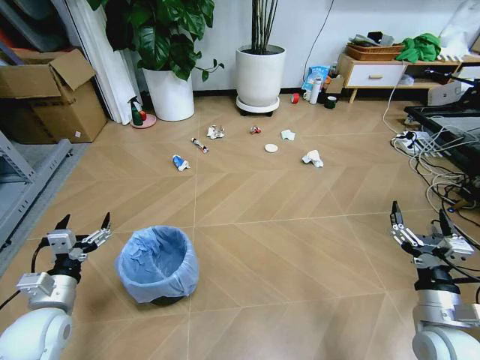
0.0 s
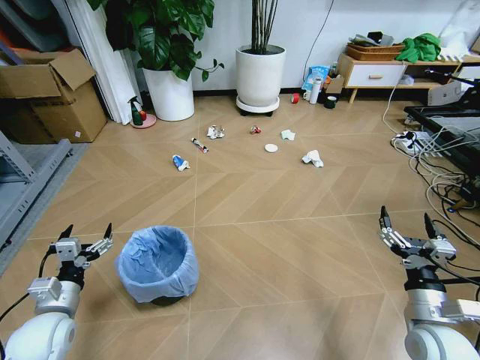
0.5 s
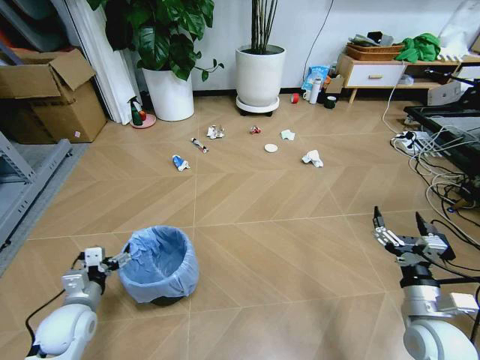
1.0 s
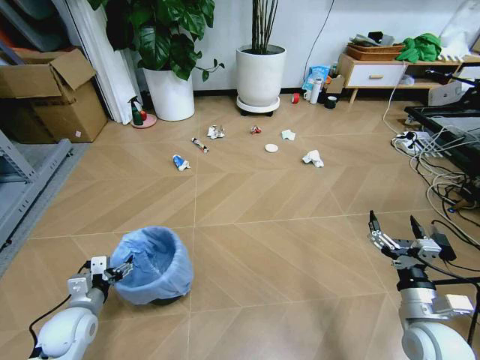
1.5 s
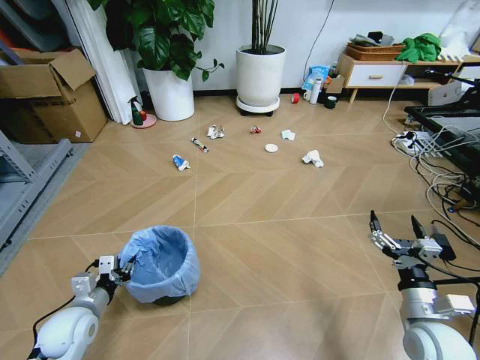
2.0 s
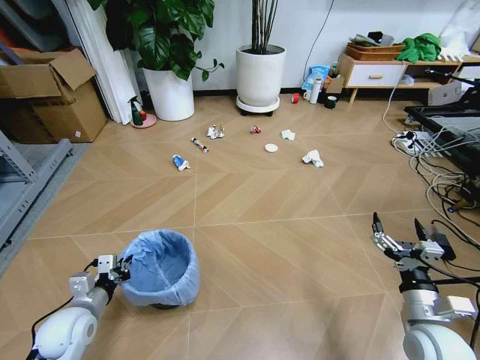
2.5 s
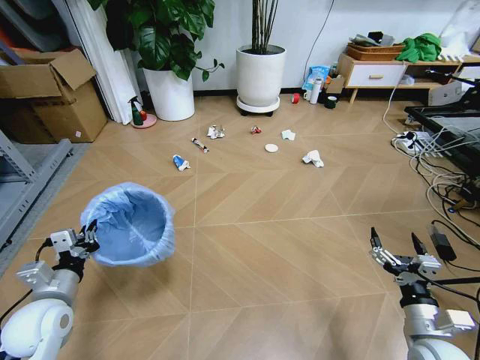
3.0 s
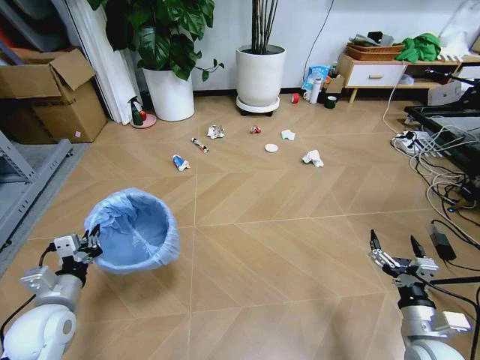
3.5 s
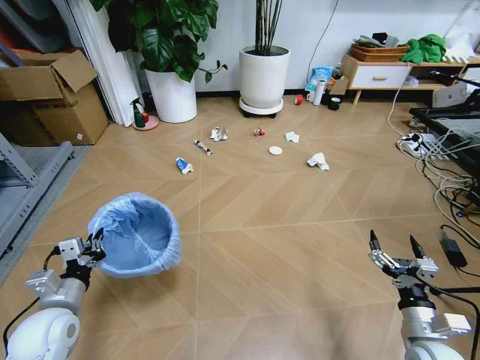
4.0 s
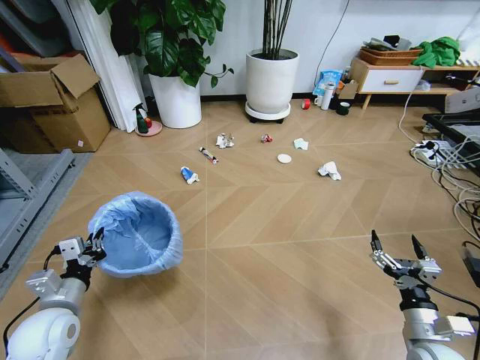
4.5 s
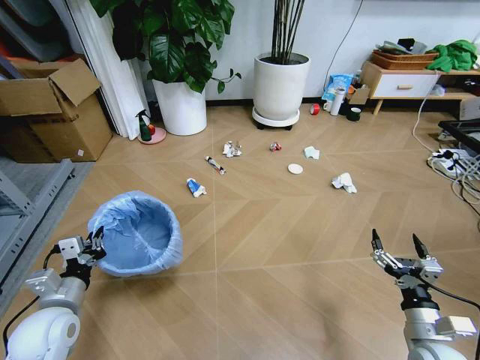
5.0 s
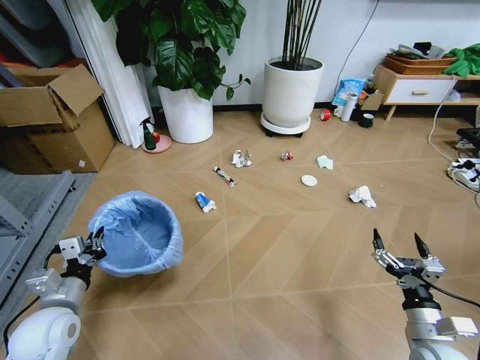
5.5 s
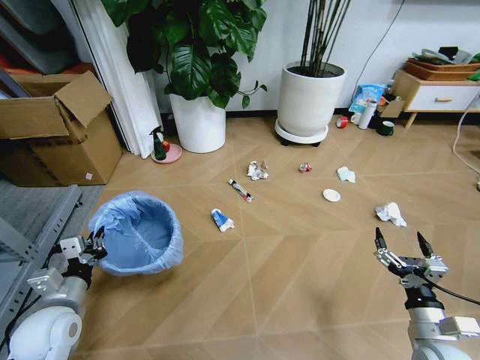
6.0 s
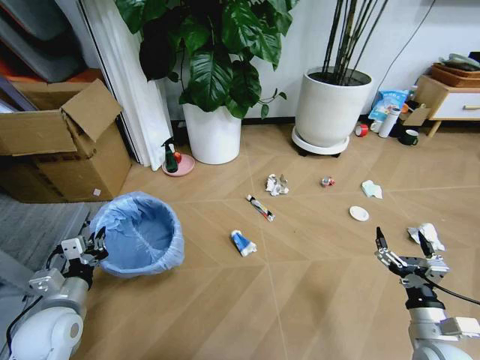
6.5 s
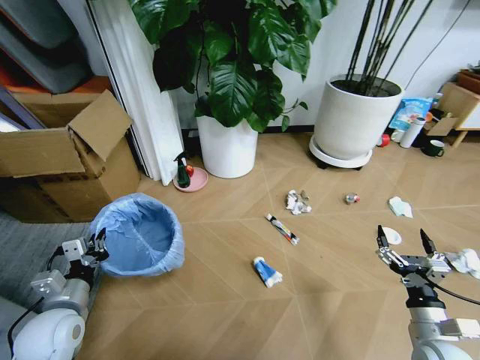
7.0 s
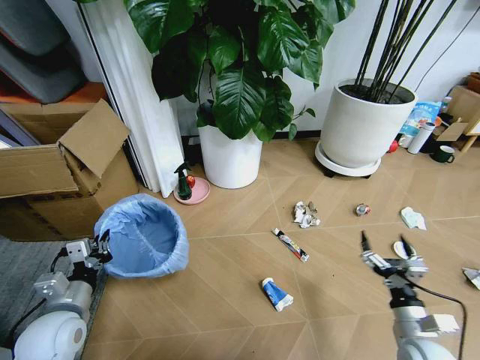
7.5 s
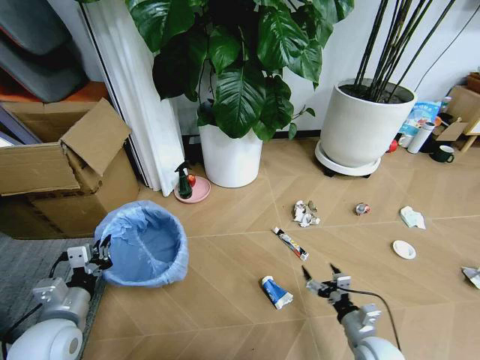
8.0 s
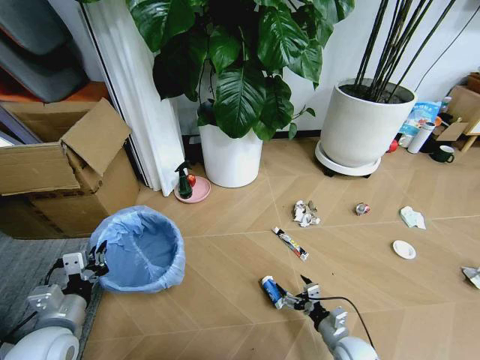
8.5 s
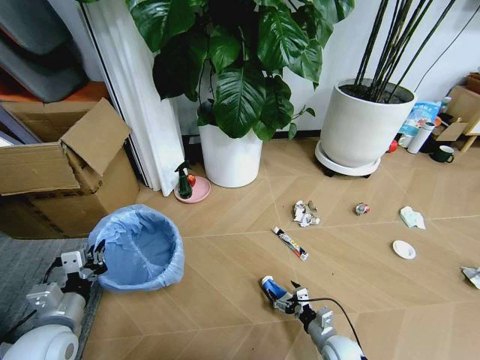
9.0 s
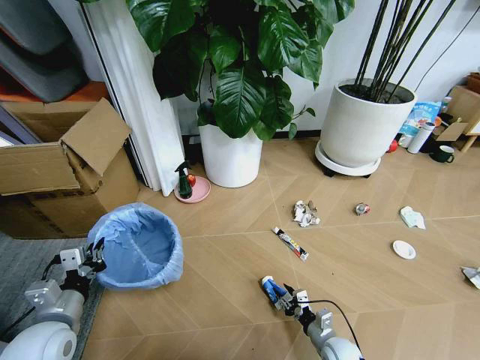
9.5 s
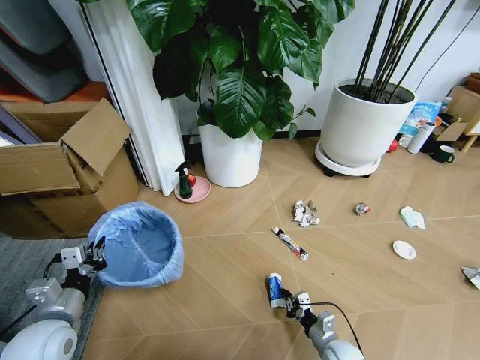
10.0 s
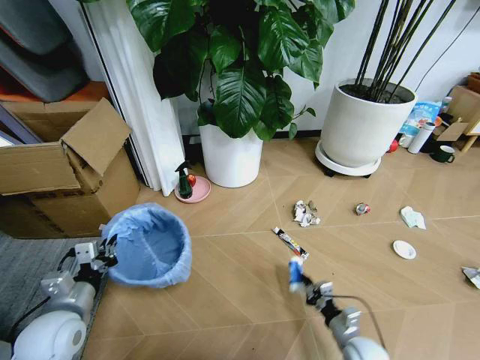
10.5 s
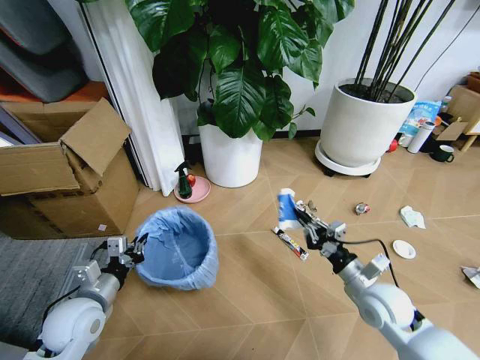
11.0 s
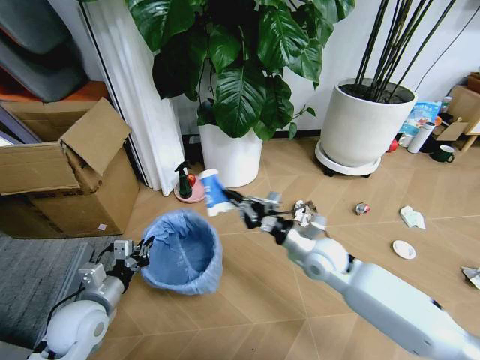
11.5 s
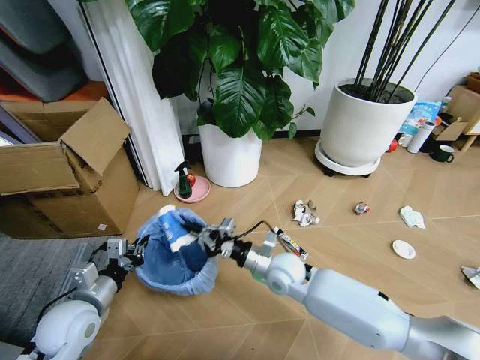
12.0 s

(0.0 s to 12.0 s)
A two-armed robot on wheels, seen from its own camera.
Task of the whole recording: Pick up the trash bin and place the garbage on the floor into it.
2.0 s - 4.0 s: The left gripper is displaced upward by approximately 5 cm.
6.0 s - 8.0 s: The right gripper goes about 15 cm downward and to the left.
8.0 s - 10.0 s: The right gripper goes approximately 10 cm downward, and closes.
10.0 s - 12.0 s: The right gripper is displaced upward, to the left and forward by some 30 cm.

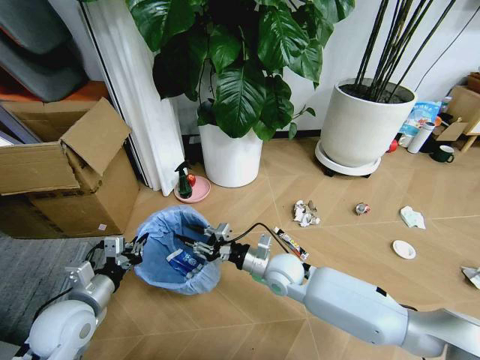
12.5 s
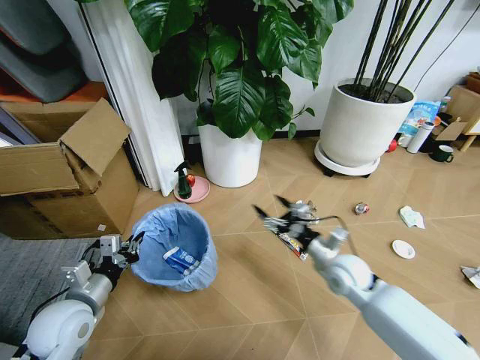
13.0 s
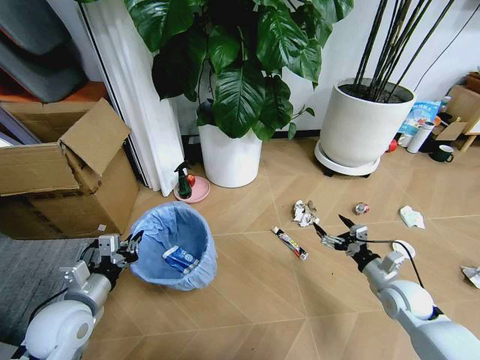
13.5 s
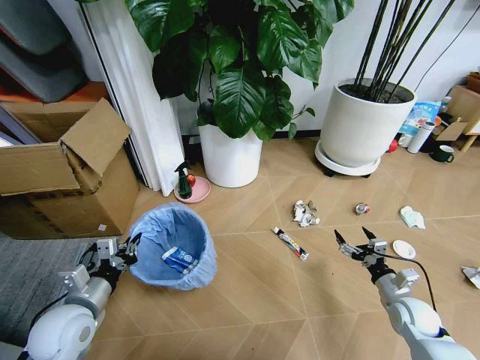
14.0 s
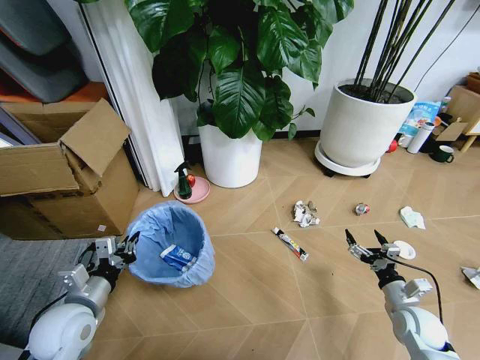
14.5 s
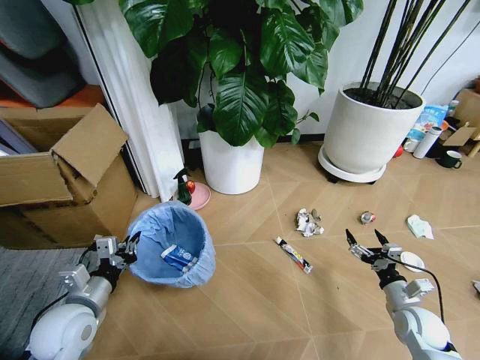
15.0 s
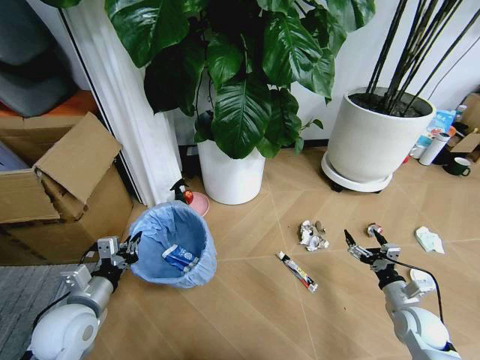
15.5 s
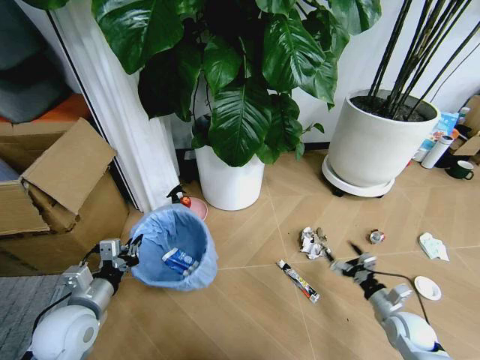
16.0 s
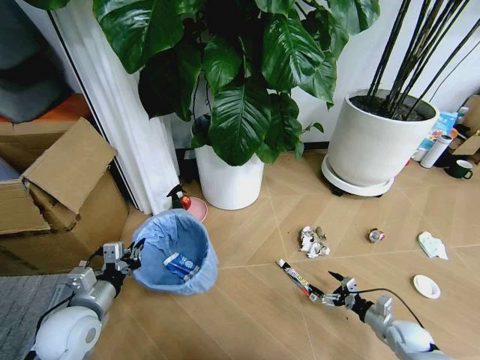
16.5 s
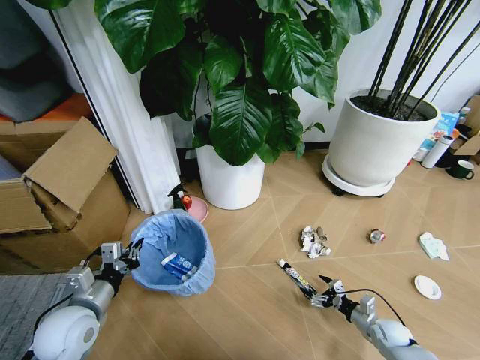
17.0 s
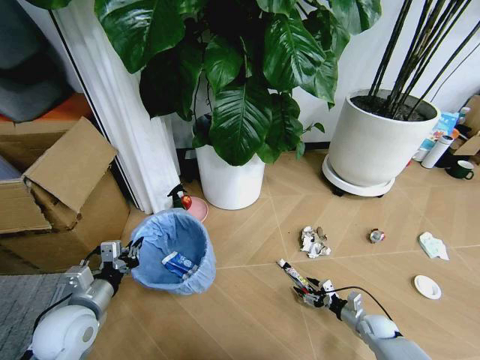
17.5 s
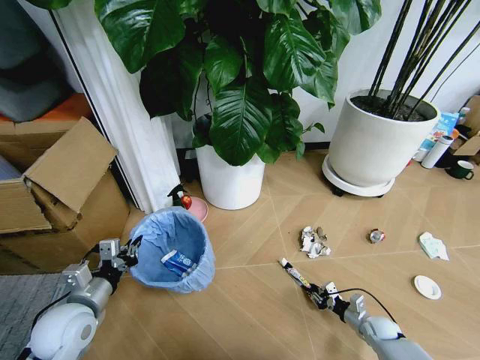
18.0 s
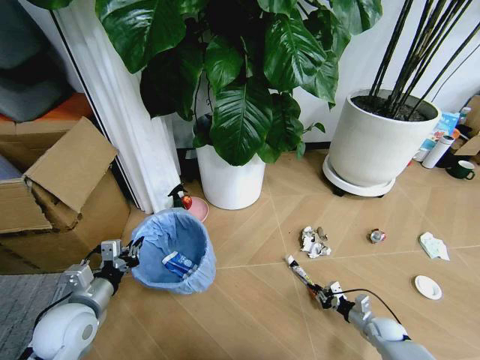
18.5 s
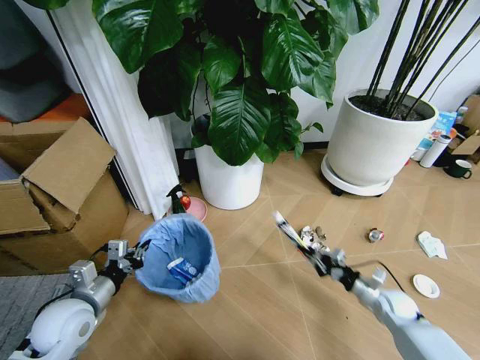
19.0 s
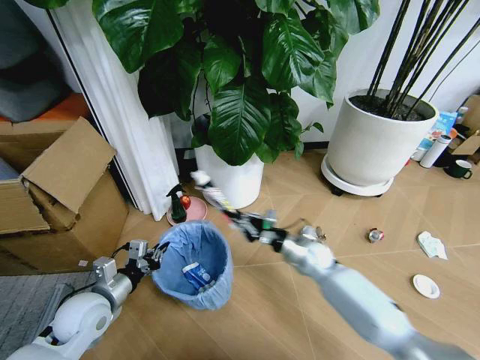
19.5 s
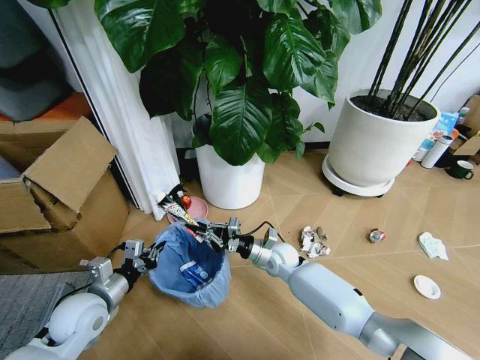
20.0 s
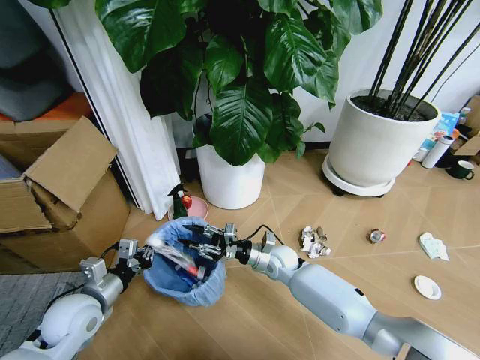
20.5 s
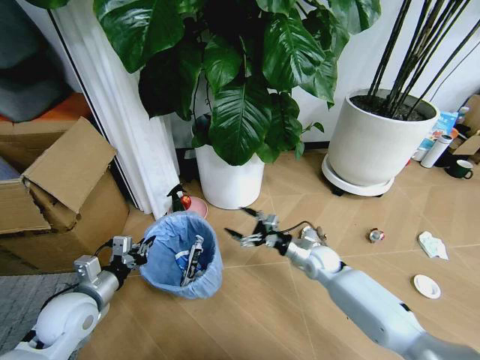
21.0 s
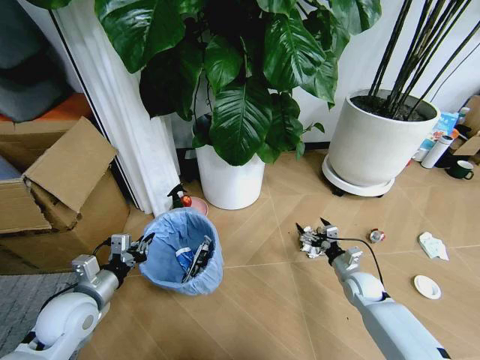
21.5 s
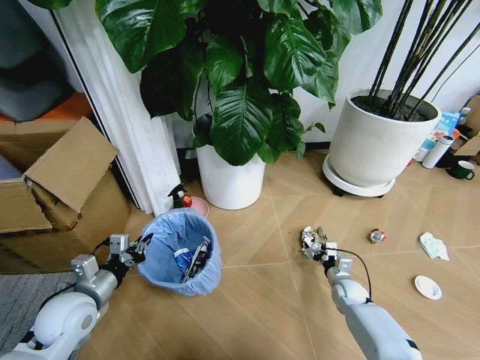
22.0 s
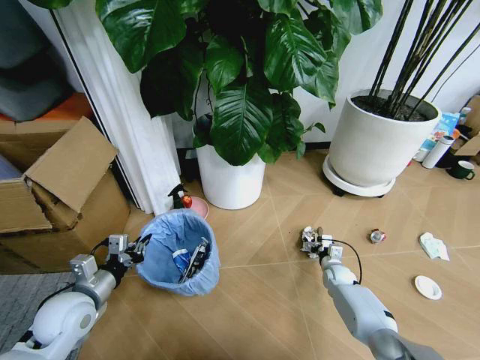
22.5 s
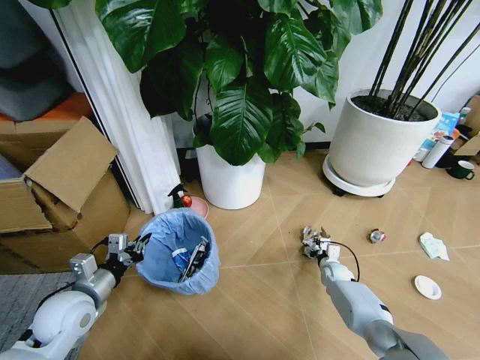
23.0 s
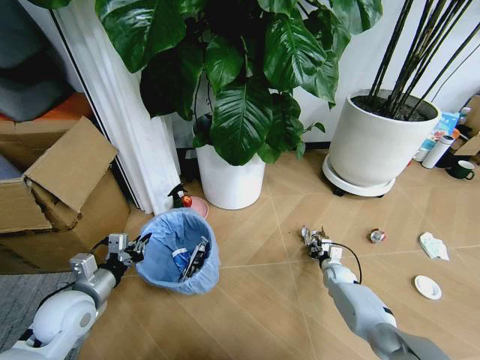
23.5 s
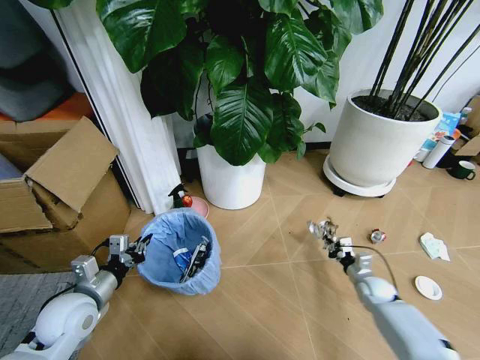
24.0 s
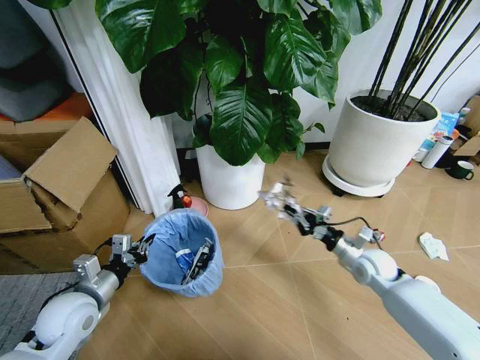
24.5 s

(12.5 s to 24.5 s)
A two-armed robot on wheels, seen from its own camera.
Task of the whole recording: Pick up the trash bin and place the garbage on the floor into it.
12.5 s - 14.5 s: The right gripper goes some 30 cm to the right, and opens its fingers.
14.5 s - 16.5 s: The right gripper goes approximately 10 cm downward.
16.5 s - 18.5 s: The right gripper goes approximately 5 cm downward, and closes its fingers.
18.5 s - 20.5 s: The right gripper shifts approximately 40 cm to the left, upward and forward, and opens its fingers.
20.5 s - 22.5 s: The right gripper shifts about 25 cm to the right and downward, and opens up.
22.5 s - 24.5 s: The right gripper shifts about 20 cm upward, and closes.

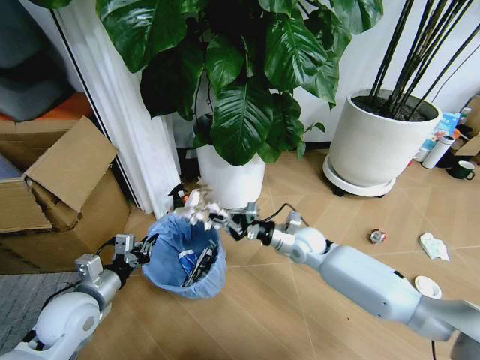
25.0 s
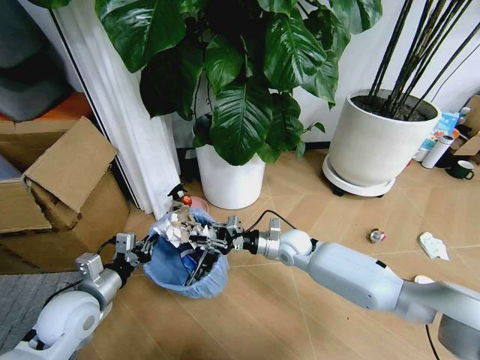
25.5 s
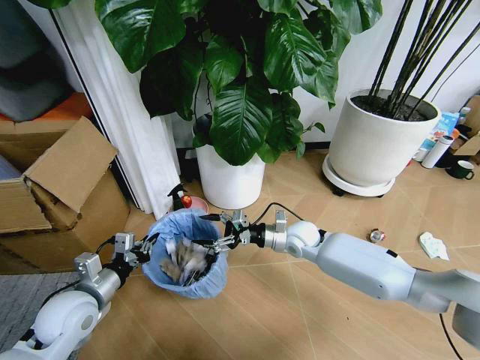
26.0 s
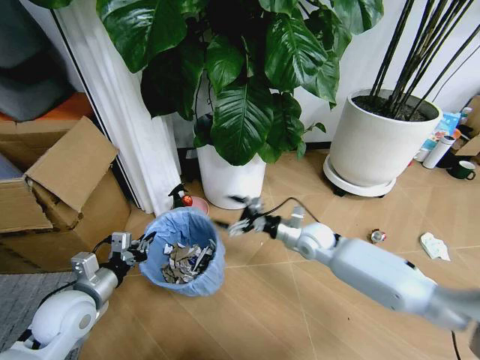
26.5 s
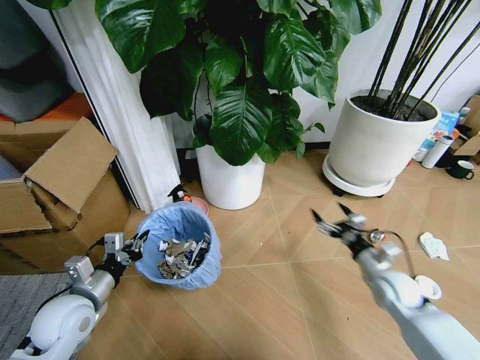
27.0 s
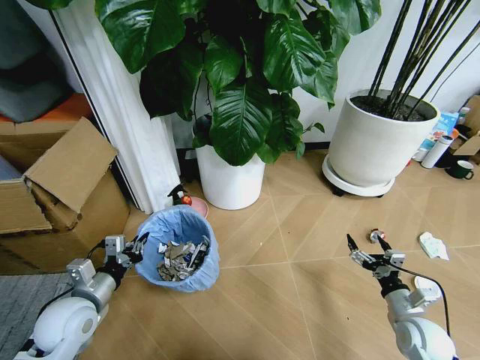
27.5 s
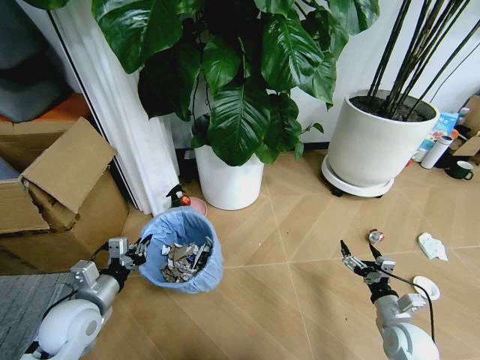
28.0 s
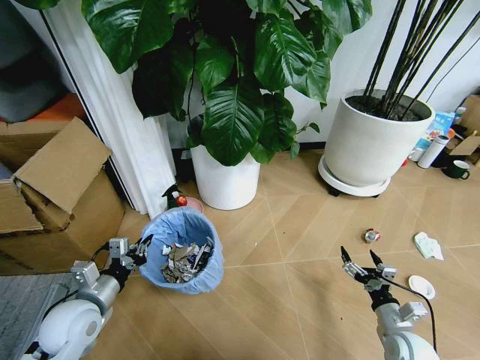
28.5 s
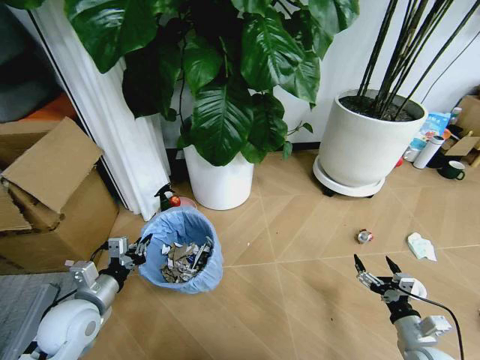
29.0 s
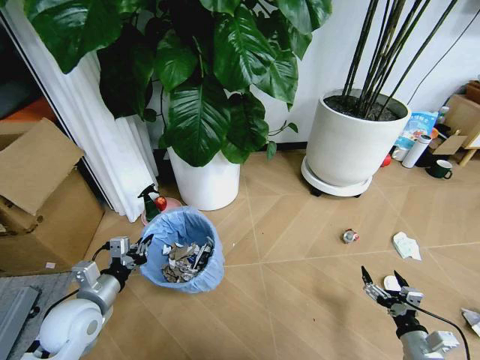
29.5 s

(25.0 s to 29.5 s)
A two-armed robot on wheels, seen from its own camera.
Task of the whole recording: Pick up the trash bin and place the garbage on the floor into it.
25.0 s - 27.0 s: The right gripper shifts about 25 cm to the right and backward, and opens up.
27.0 s - 29.5 s: The right gripper is displaced backward and downward by about 20 cm.
